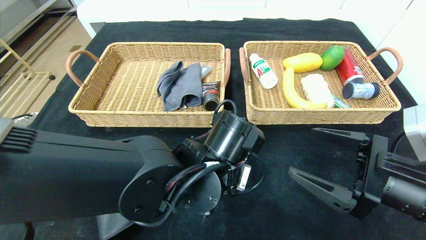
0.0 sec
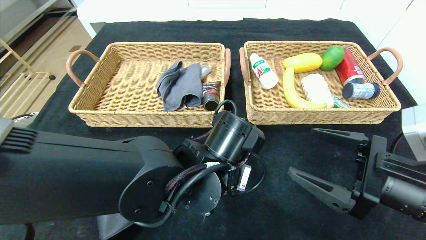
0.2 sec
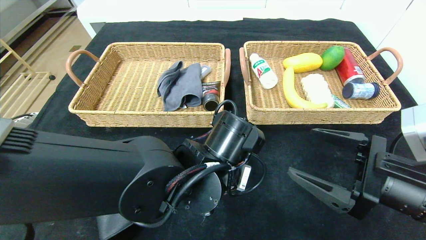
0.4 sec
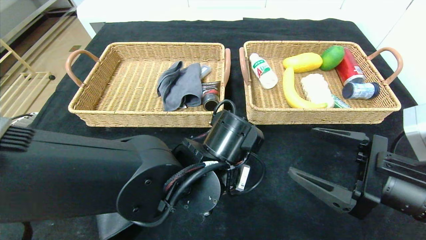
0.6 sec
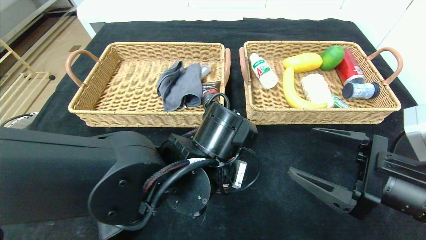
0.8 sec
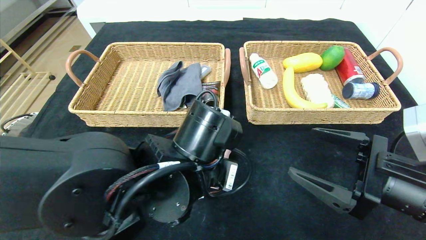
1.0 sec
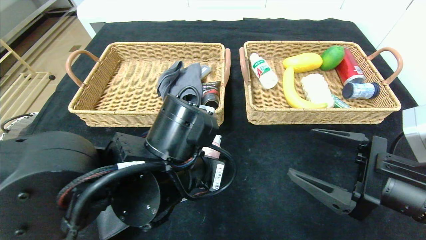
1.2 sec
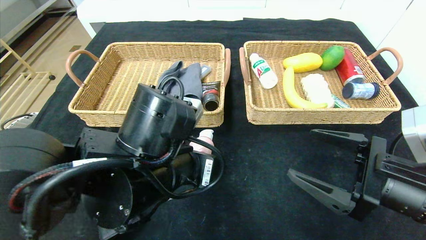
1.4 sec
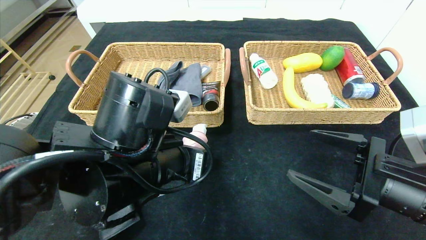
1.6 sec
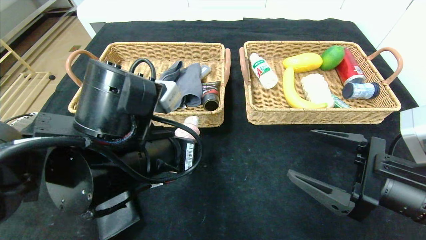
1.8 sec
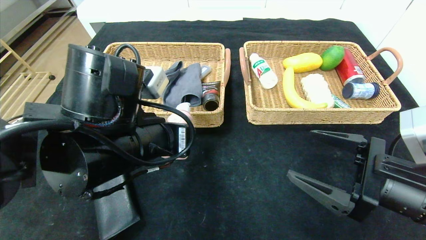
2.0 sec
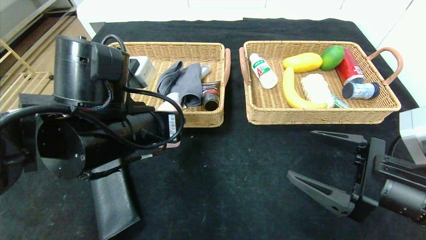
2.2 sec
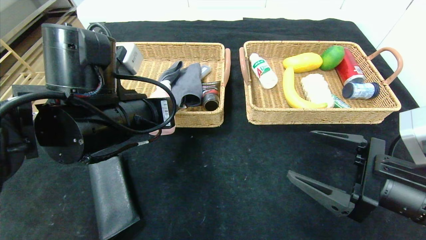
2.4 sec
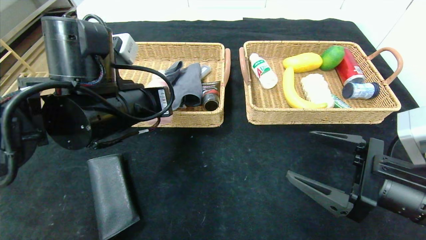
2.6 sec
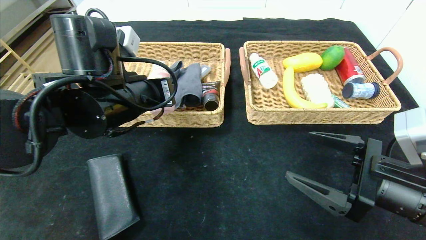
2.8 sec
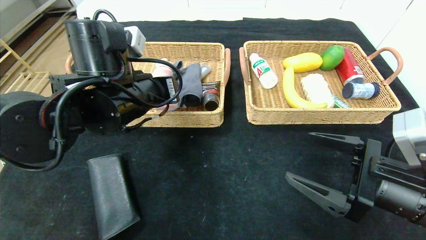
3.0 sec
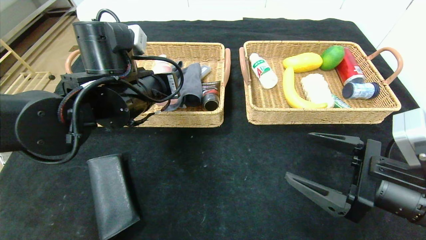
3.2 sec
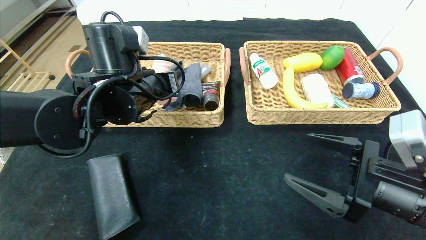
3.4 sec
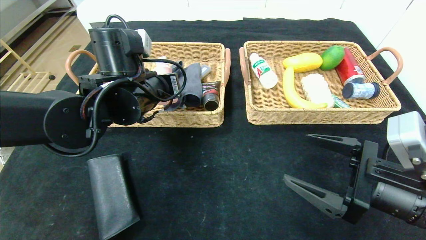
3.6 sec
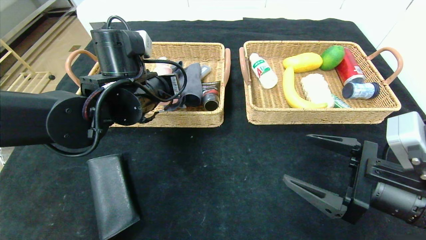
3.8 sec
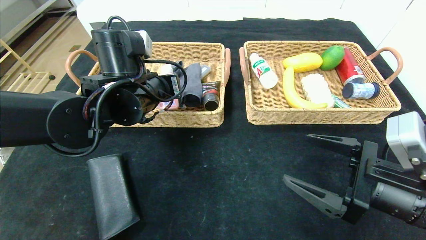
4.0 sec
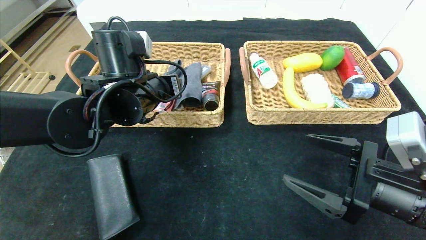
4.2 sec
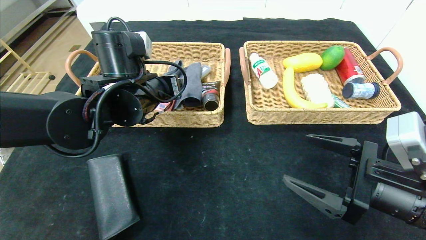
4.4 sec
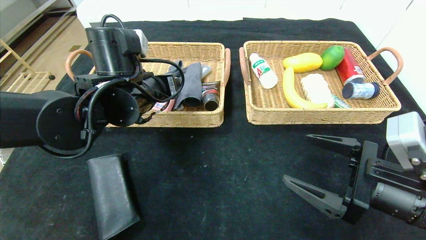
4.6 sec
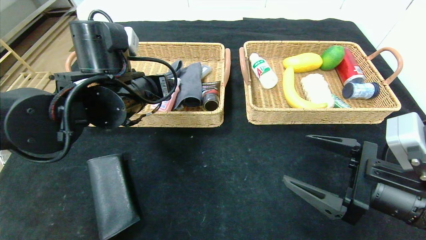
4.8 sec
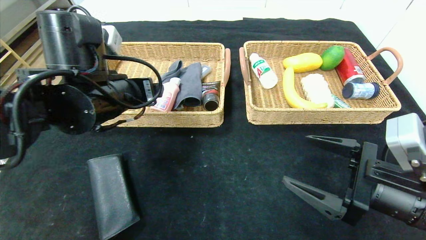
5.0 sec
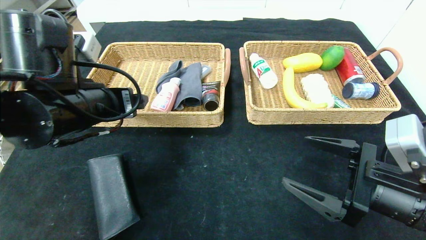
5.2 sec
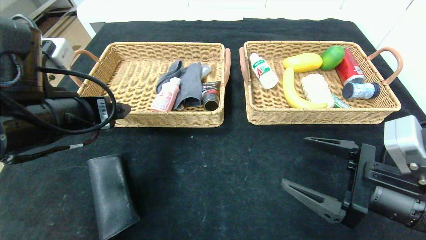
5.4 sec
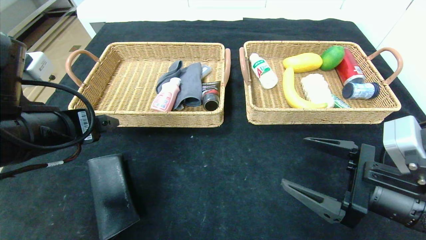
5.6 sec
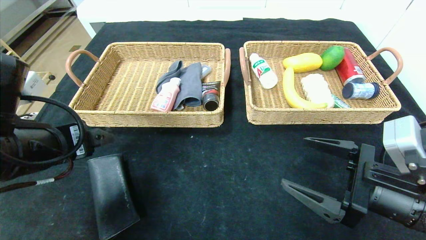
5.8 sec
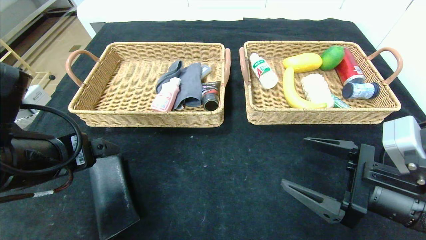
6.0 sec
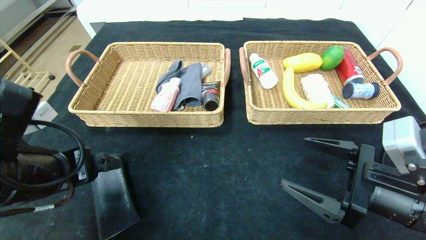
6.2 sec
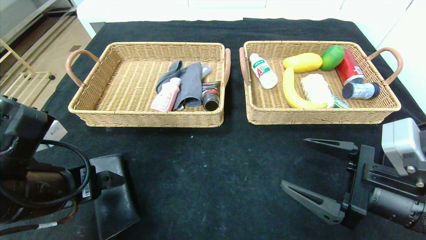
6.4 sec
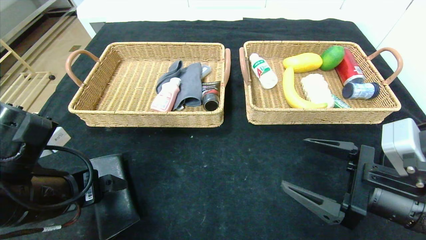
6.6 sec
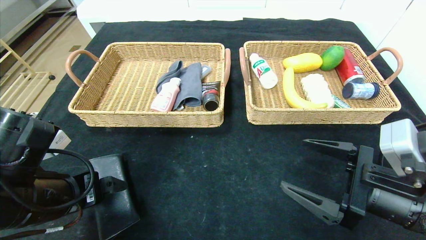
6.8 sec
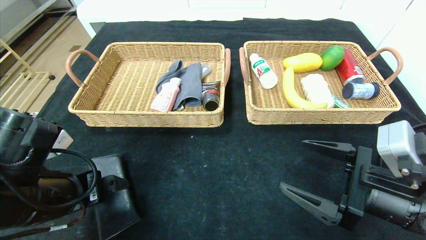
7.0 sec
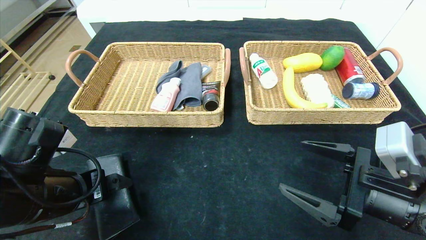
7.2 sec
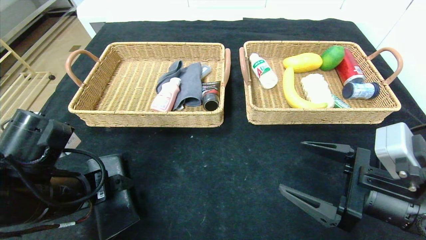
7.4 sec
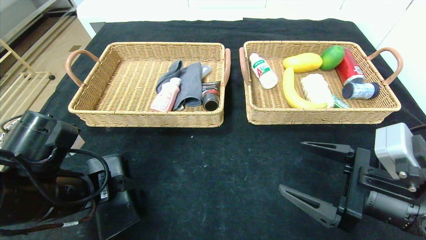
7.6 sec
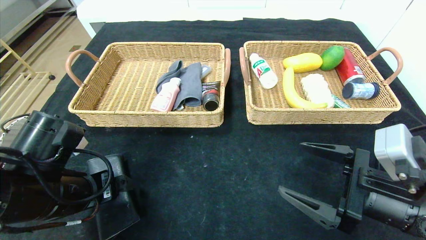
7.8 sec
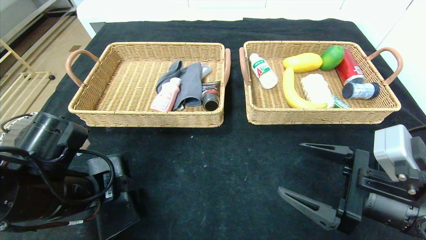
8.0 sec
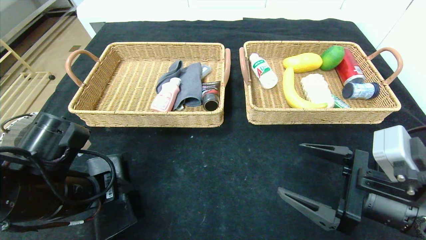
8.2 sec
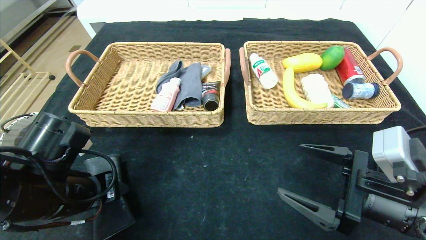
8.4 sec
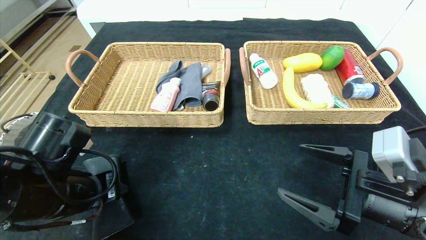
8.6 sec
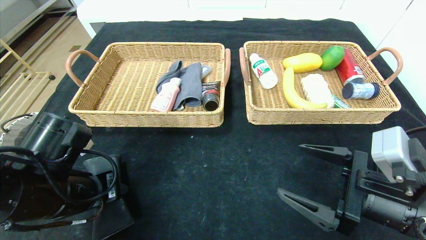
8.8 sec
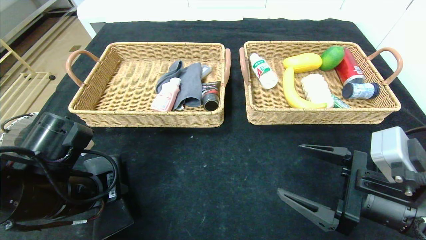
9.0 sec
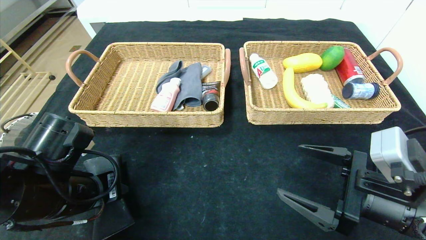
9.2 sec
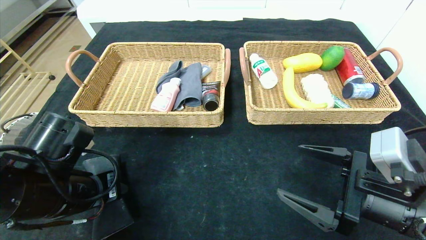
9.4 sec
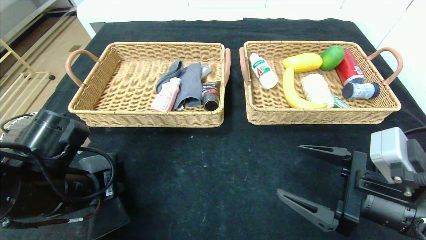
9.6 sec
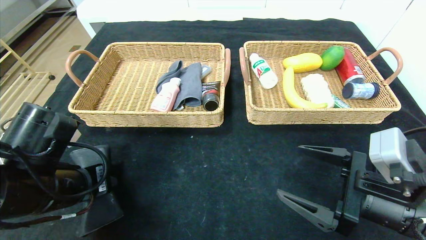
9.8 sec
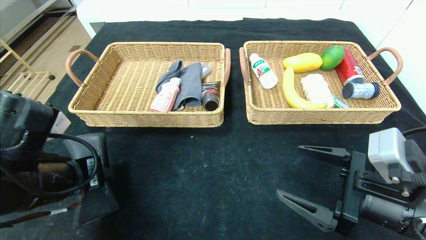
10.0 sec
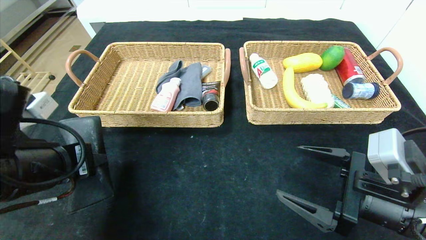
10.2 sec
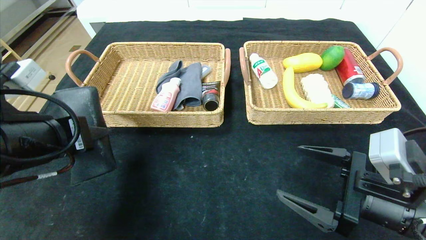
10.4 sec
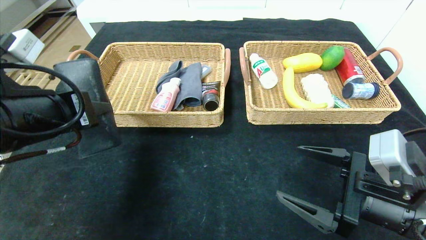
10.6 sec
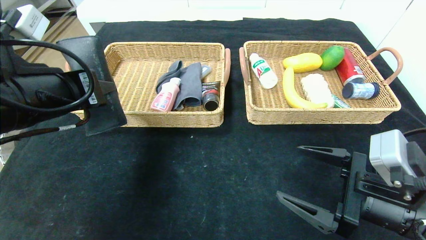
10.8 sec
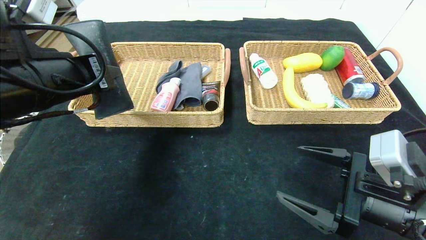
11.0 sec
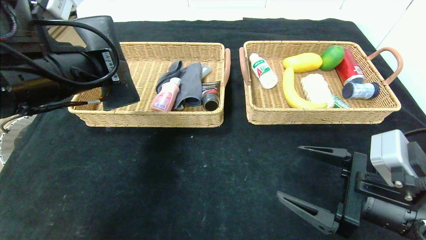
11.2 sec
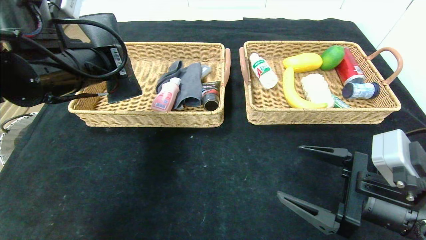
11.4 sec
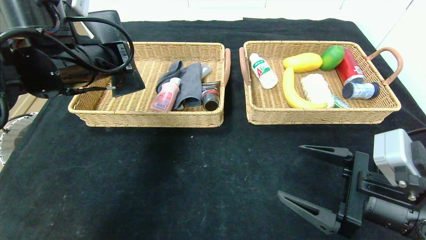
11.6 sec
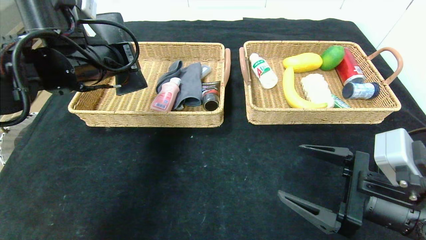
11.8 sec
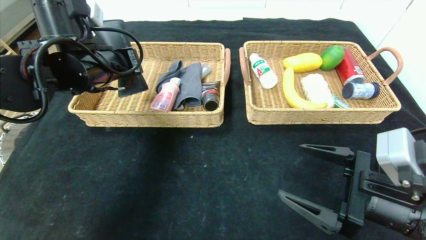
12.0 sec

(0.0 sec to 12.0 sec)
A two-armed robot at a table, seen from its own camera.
Step, 0.0 sec - 5.6 sec: Pick up the detergent and put it in the left basket.
0.0 sec - 1.6 sec: The left gripper moves to the left and upward, some 10 cm.
1.6 sec - 3.0 sec: The left gripper heads forward, covering roughly 10 cm.
3.0 sec - 4.4 sec: The left gripper opens its fingers.
4.4 sec - 6.0 sec: The left gripper moves backward and to the left, about 20 cm.
6.0 sec - 7.6 sec: The left gripper travels downward by some 5 cm.
7.6 sec - 9.0 sec: The left gripper closes its fingers.
9.0 sec - 10.4 sec: The left gripper heads upward, covering approximately 10 cm.
10.4 sec - 12.0 sec: The left gripper travels forward by about 15 cm.

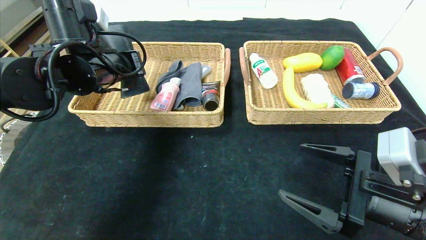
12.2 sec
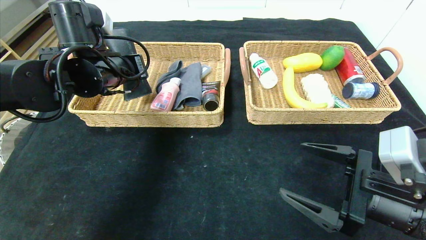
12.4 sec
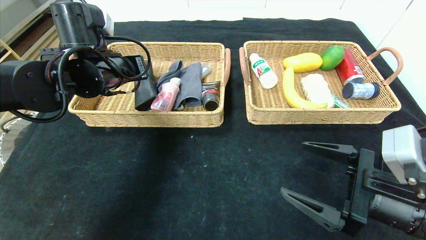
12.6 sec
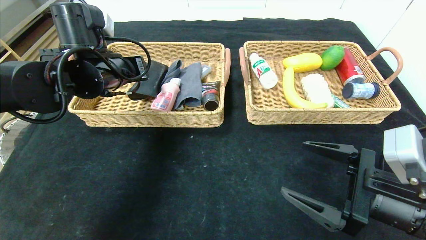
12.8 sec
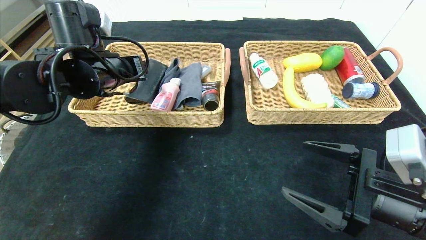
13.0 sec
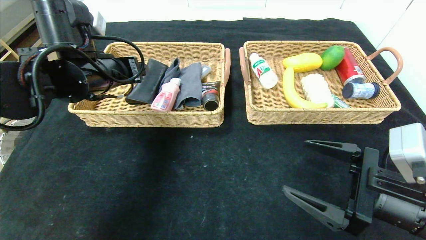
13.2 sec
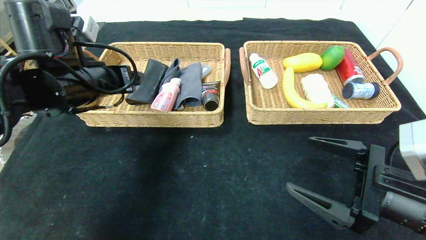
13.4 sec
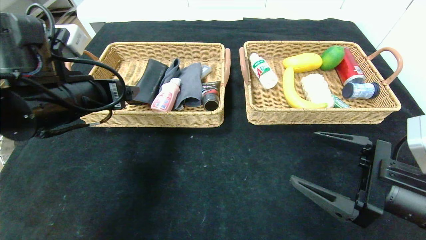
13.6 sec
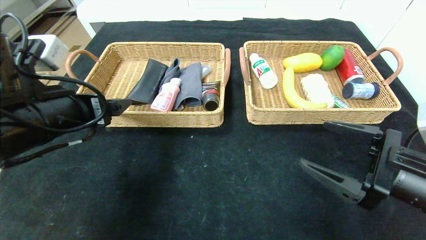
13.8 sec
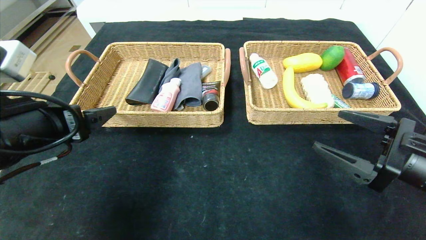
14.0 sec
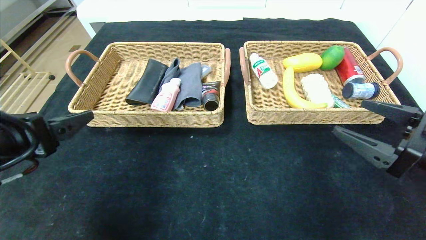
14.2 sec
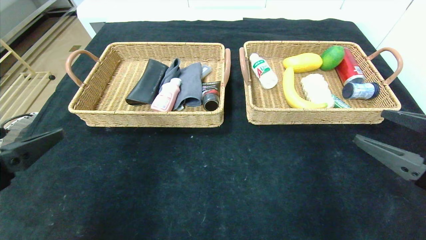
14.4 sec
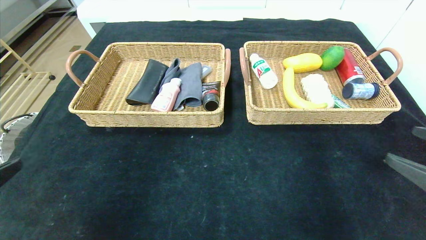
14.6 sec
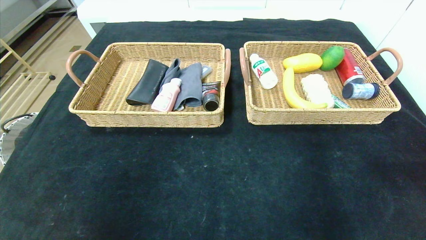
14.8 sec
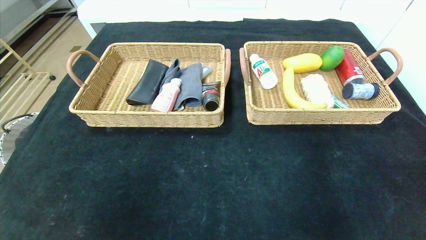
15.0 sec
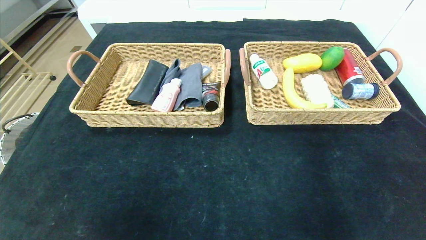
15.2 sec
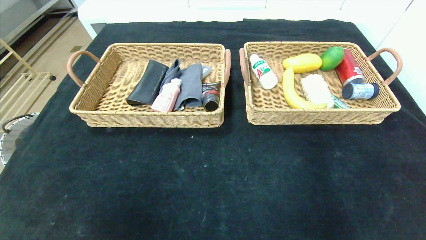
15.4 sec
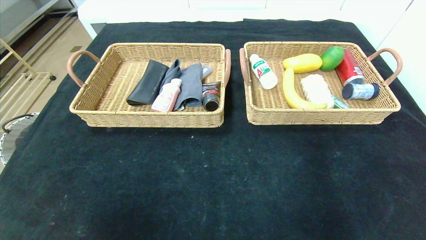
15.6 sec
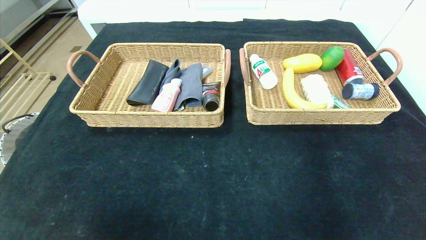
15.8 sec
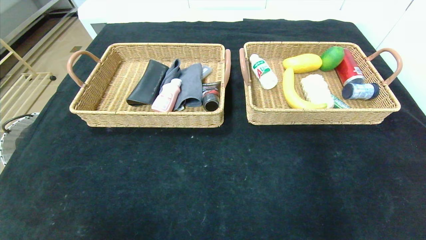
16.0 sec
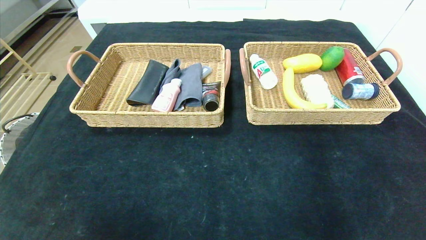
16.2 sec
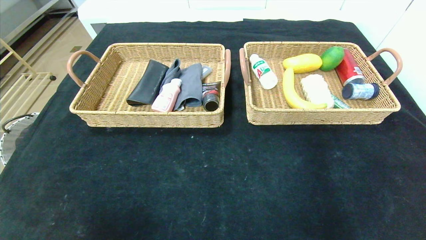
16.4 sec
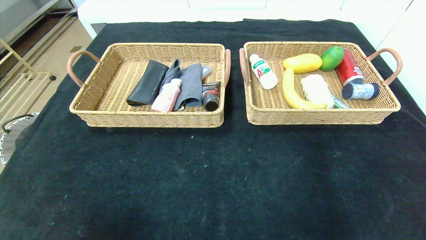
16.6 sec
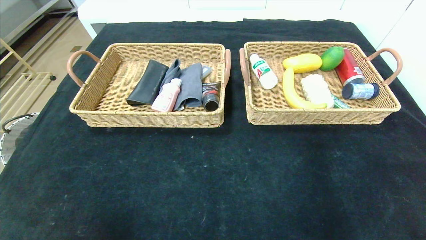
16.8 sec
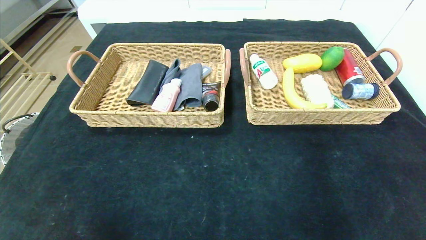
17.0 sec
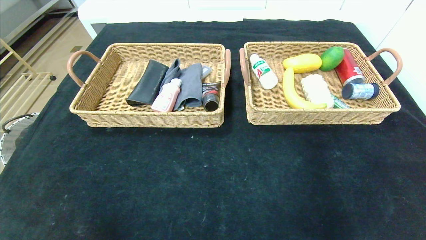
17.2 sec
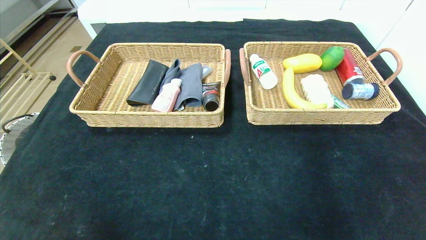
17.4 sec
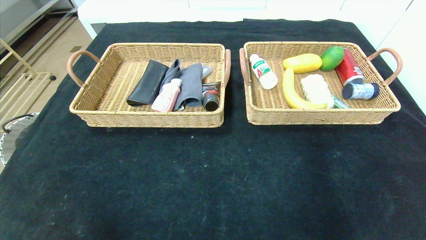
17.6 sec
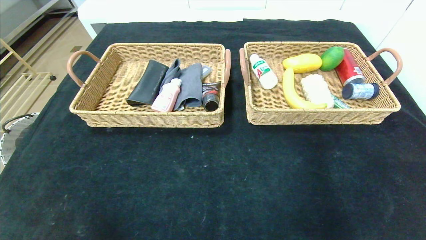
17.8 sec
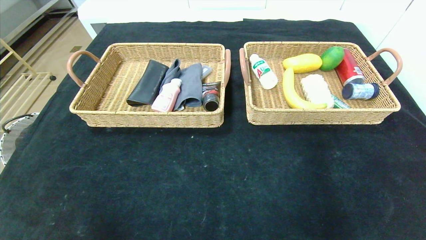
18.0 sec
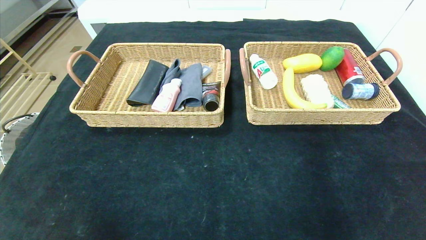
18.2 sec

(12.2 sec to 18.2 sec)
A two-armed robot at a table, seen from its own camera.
Step, 12.2 sec - 14.2 sec: Pick up the glasses case and put it in the left basket.
12.2 sec - 13.8 sec: The left gripper heads backward, covering some 15 cm, and opens its fingers.
13.8 sec - 15.2 sec: The left gripper moves backward, approximately 30 cm. Meanwhile the right gripper is displaced backward and to the right by roughly 25 cm.
